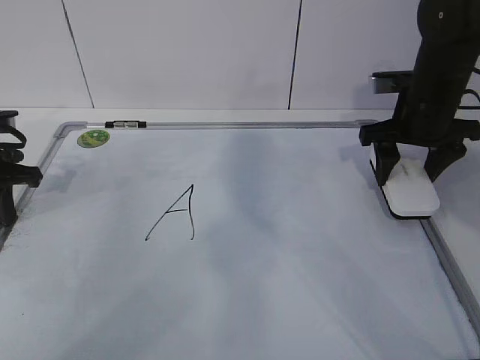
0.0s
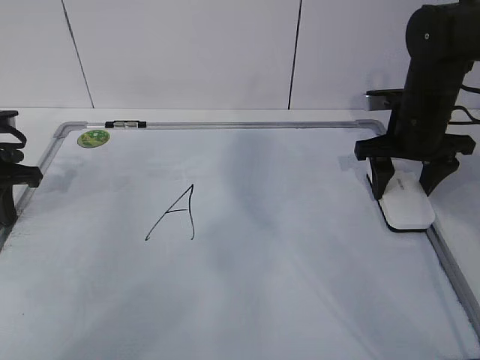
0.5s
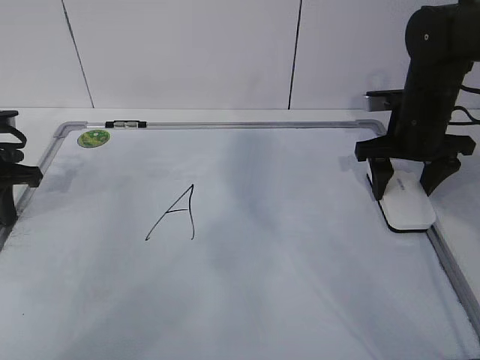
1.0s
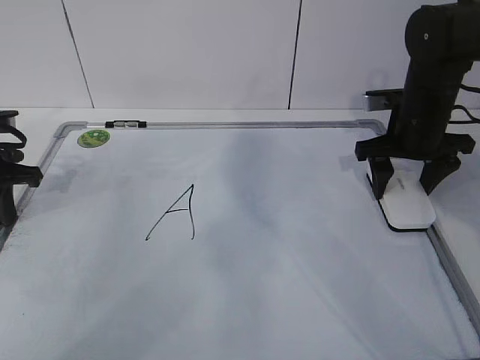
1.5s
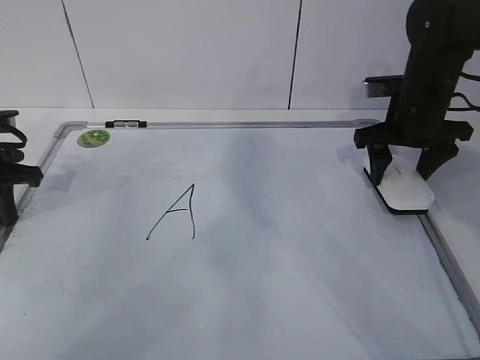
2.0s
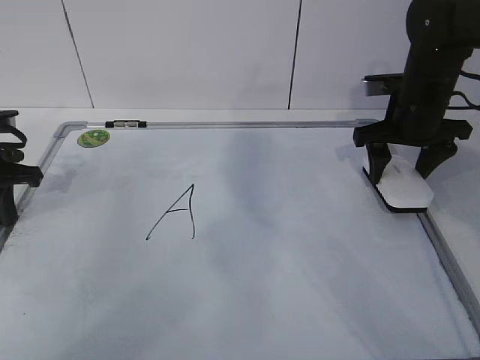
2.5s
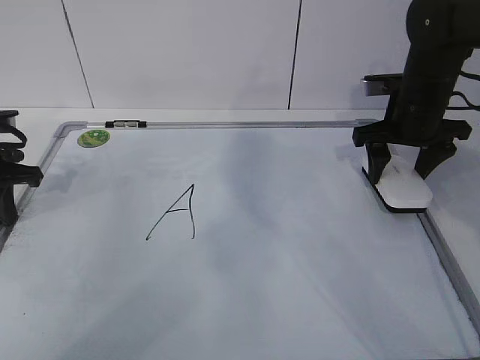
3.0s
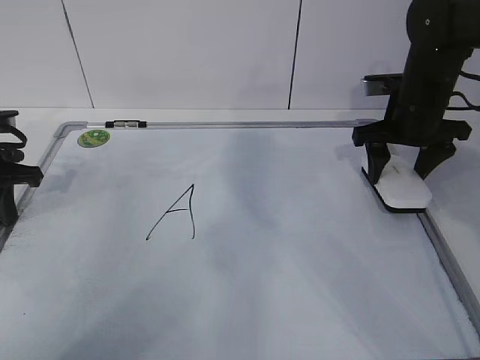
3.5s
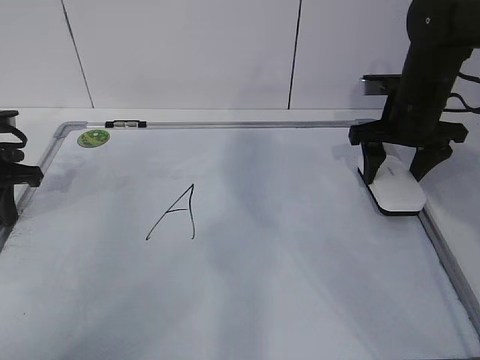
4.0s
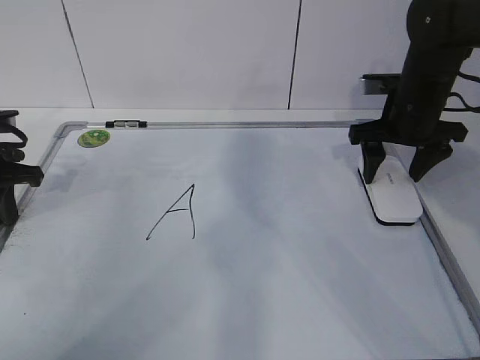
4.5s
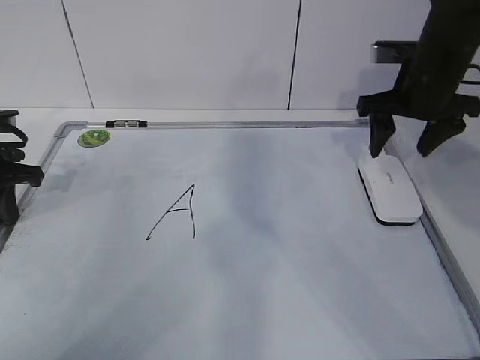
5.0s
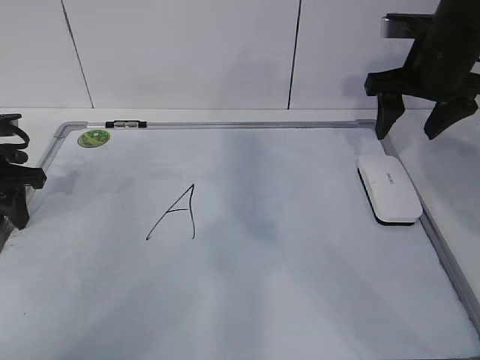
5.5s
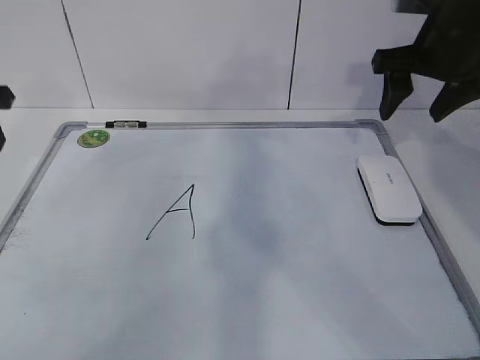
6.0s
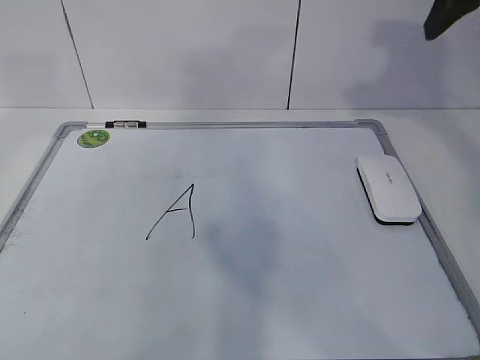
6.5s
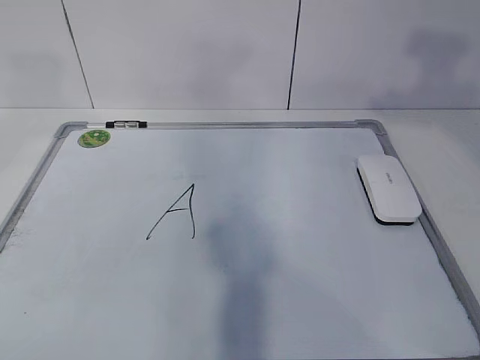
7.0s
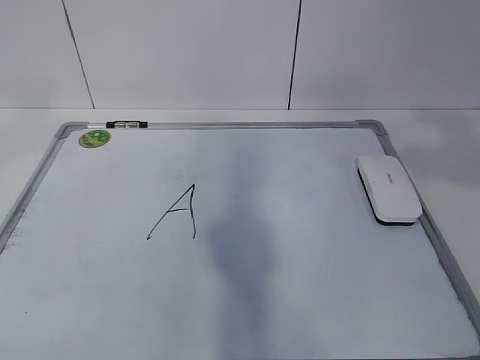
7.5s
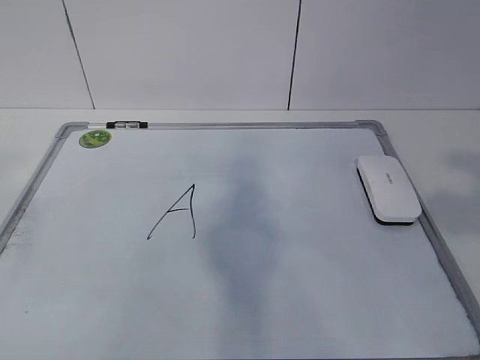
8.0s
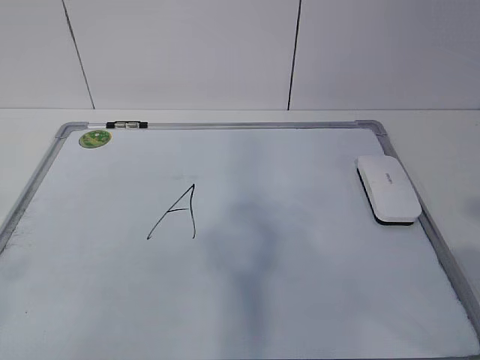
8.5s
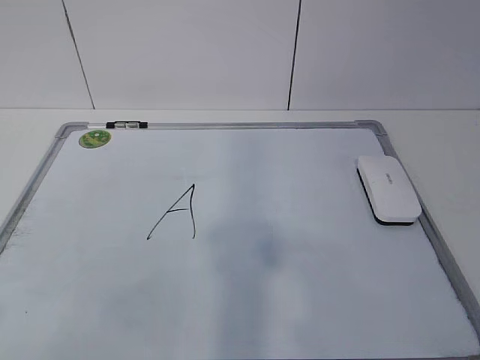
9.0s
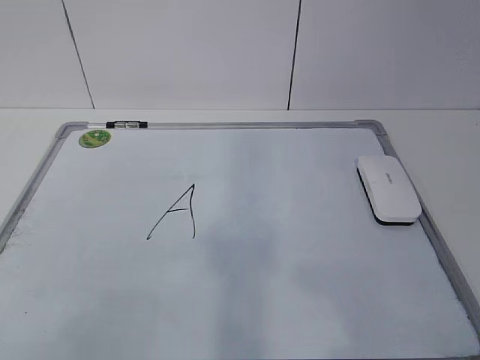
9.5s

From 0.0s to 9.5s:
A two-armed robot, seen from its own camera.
Task of the whole recording: pick up the eraser on the blackboard and erase the letter "a".
From 0.0s to 2.0s: The right gripper opens up.
From 2.0s to 4.0s: Neither gripper changes place.
From 4.0s to 5.5s: The left gripper opens its fingers; the right gripper shifts some 5 cm upward.
From 5.5s to 7.5s: The left gripper is displaced upward and backward by about 40 cm. The right gripper heads backward and upward, covering approximately 35 cm.
From 7.5s to 9.5s: Both grippers move downward and backward, some 20 cm.
